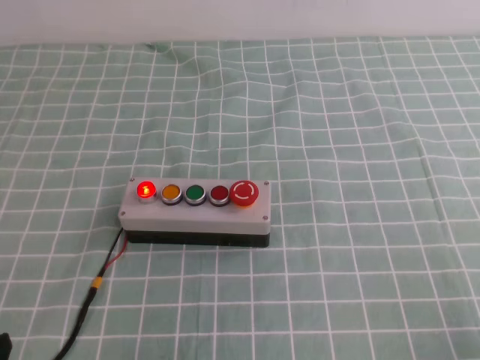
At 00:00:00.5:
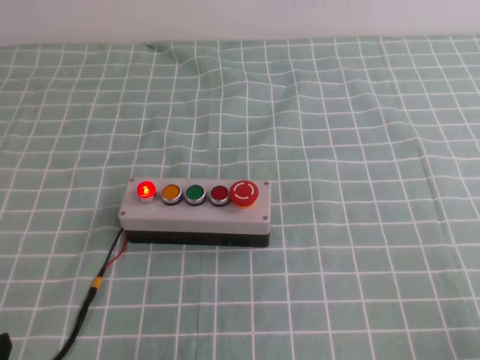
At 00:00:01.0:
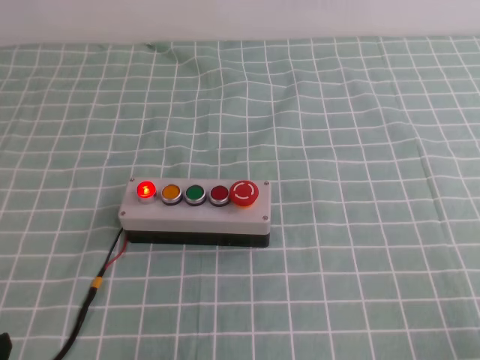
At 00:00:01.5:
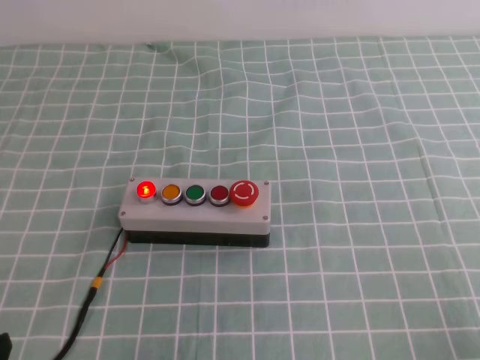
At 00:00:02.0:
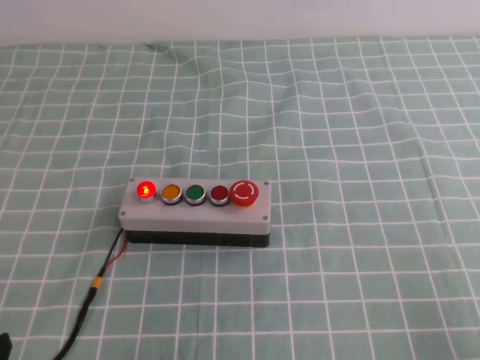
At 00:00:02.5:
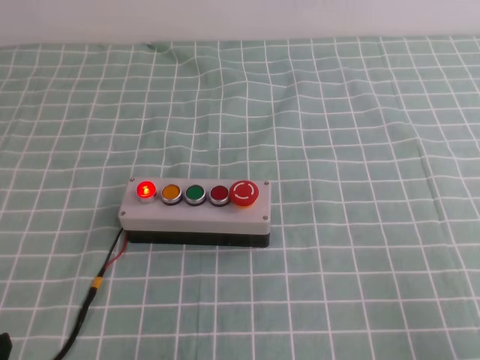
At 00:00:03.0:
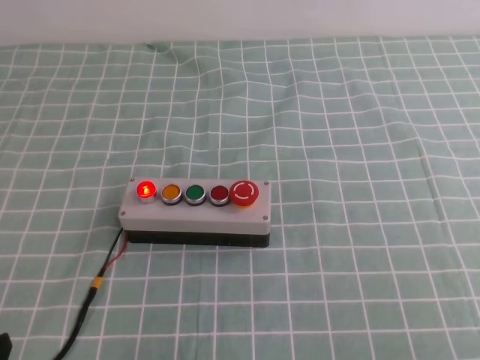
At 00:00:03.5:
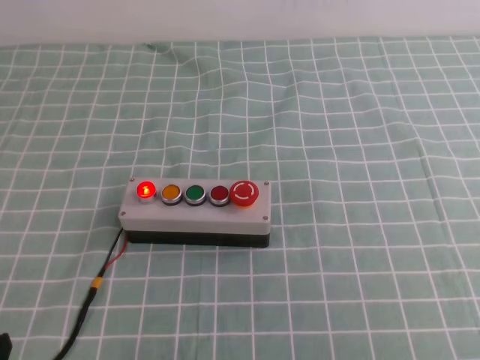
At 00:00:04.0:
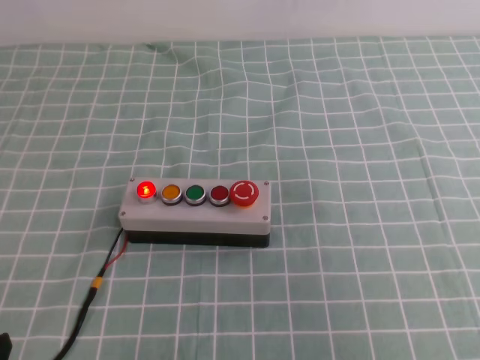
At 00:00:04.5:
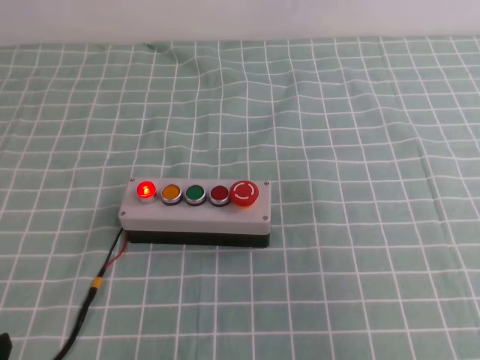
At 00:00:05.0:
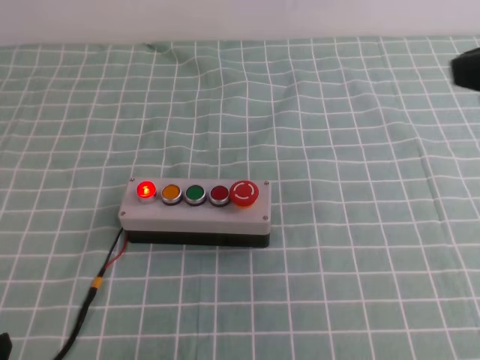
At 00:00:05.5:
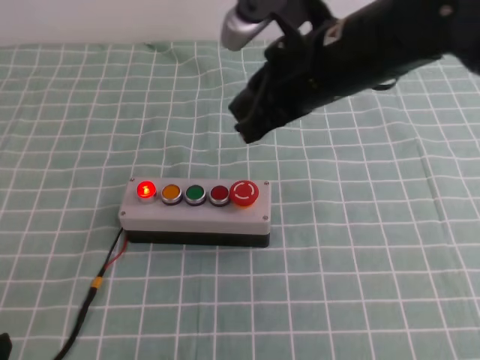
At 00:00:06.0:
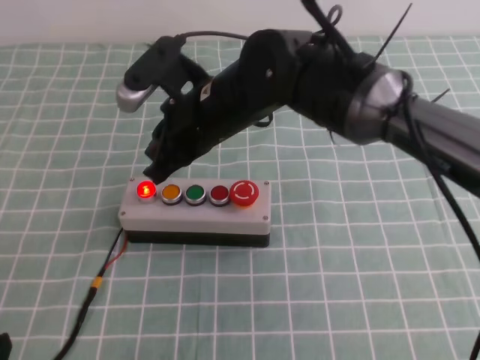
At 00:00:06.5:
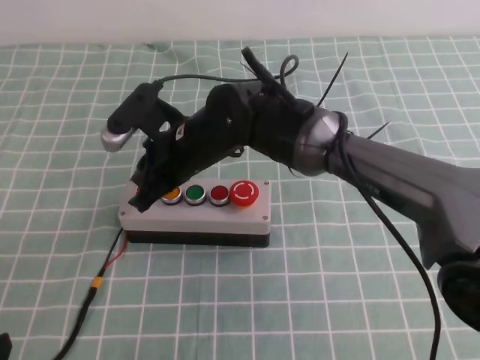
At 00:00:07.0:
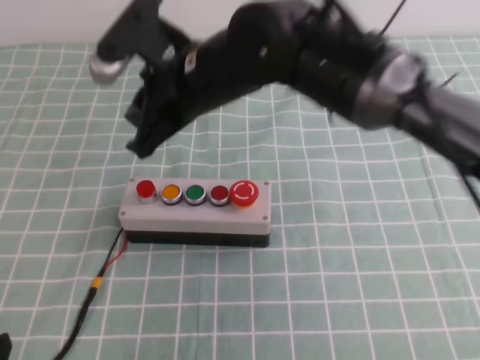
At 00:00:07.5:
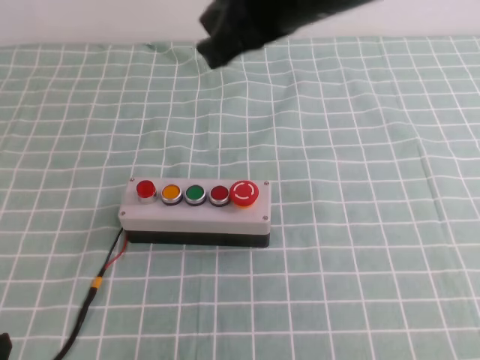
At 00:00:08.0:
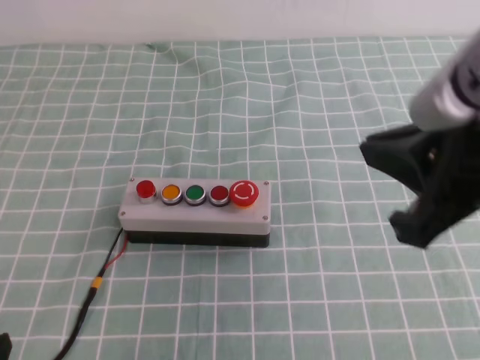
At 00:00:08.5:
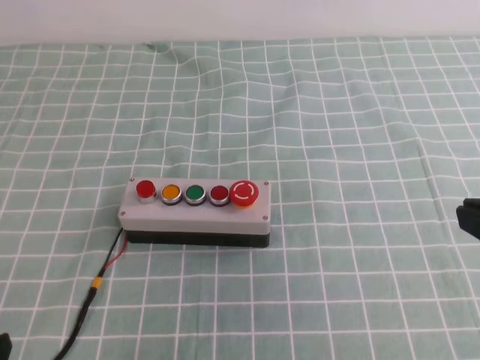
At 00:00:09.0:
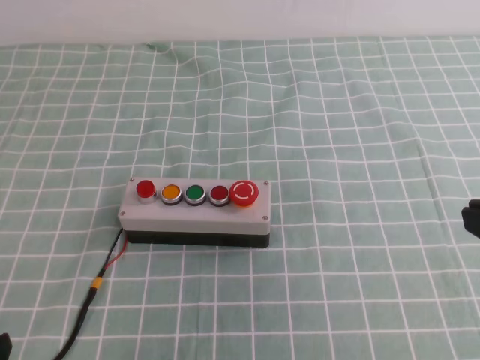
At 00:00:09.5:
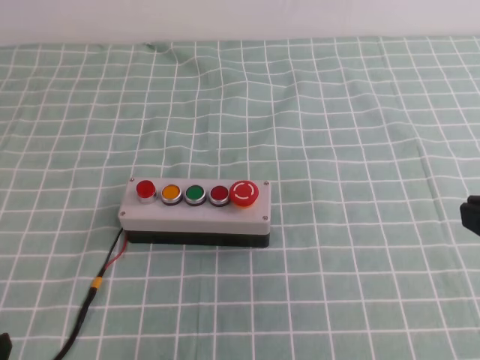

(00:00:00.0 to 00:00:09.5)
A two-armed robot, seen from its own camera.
Task of the whole recording: press the button switch on the cyan tablecloth with the right gripper to turn off the button.
00:00:02.0 - 00:00:04.0: The right gripper heads upward, covering roughly 20 cm.
00:00:04.0 - 00:00:05.5: The right gripper shifts about 35 cm forward and to the left.
00:00:05.5 - 00:00:07.5: The right gripper travels upward by some 5 cm.
00:00:07.5 - 00:00:09.5: The right gripper goes some 25 cm backward, to the right and downward.

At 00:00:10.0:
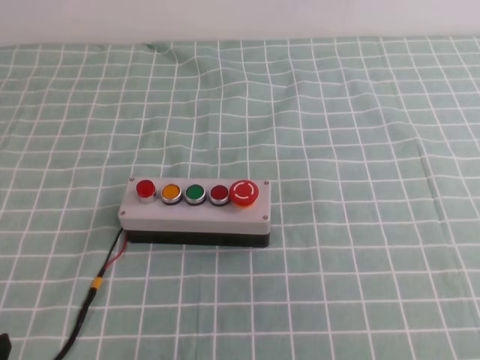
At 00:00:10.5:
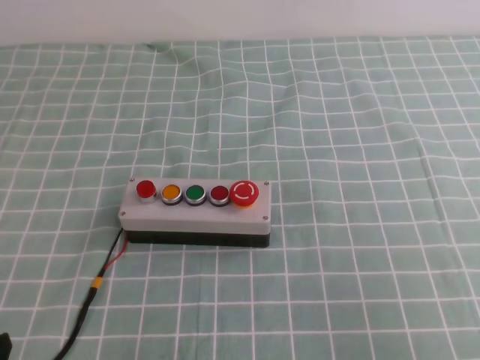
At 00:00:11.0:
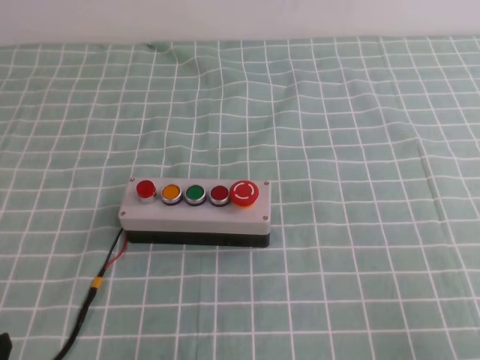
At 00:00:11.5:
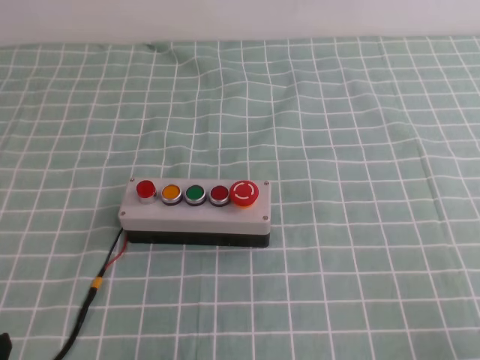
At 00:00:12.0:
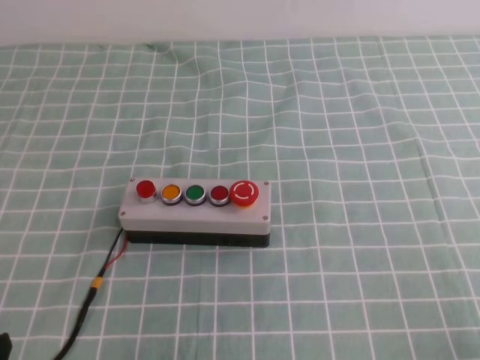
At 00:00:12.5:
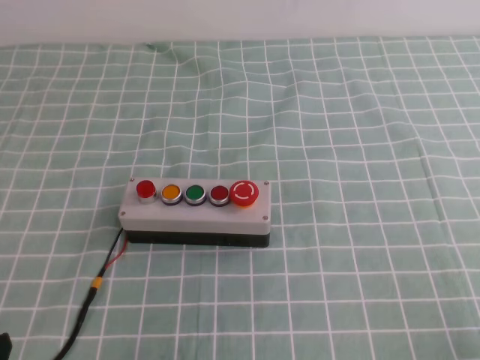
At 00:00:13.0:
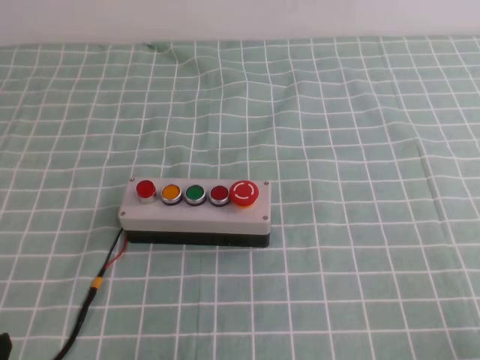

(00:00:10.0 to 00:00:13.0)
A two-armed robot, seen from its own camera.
Task of the whole recording: press the button switch on the cyan tablecloth with the right gripper to turn off the button.
00:00:10.0 - 00:00:11.5: The right gripper goes about 15 cm downward.
